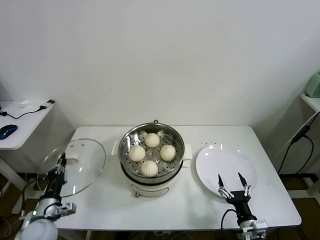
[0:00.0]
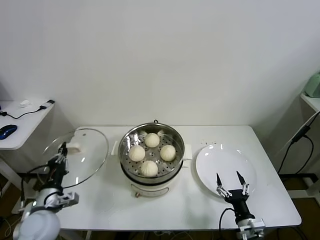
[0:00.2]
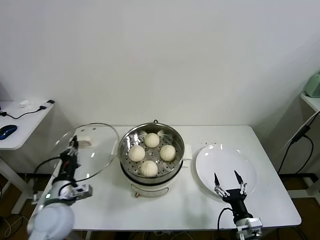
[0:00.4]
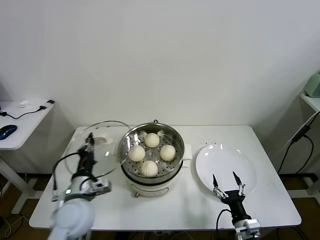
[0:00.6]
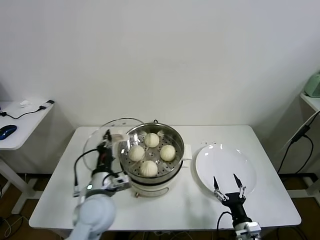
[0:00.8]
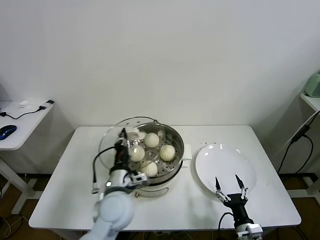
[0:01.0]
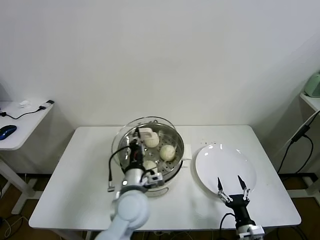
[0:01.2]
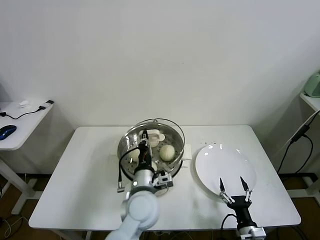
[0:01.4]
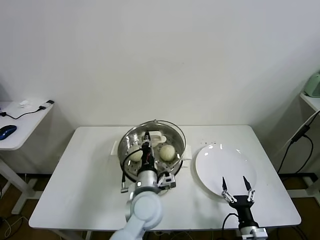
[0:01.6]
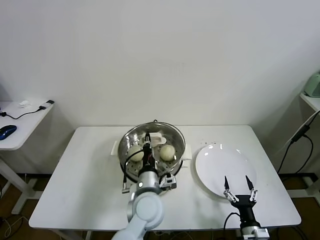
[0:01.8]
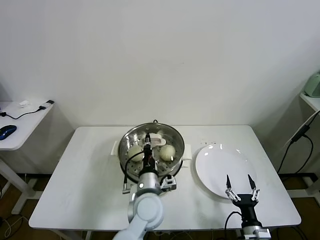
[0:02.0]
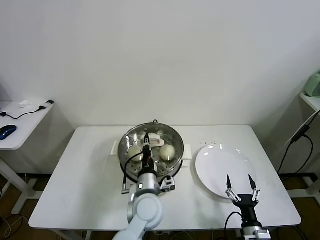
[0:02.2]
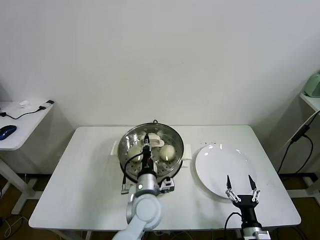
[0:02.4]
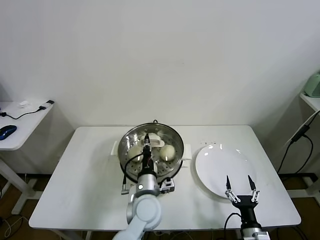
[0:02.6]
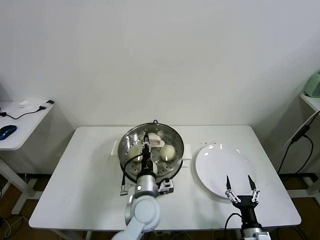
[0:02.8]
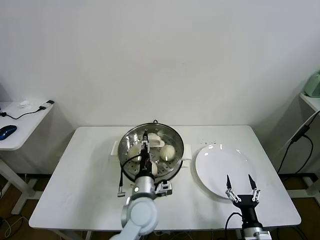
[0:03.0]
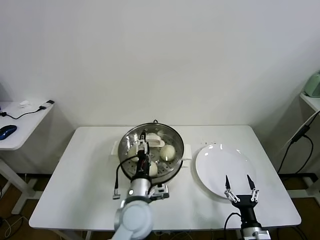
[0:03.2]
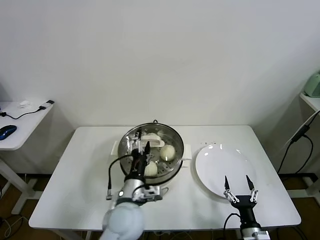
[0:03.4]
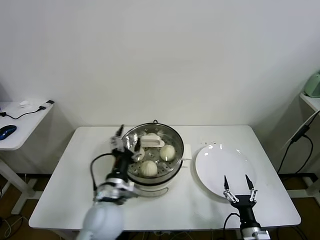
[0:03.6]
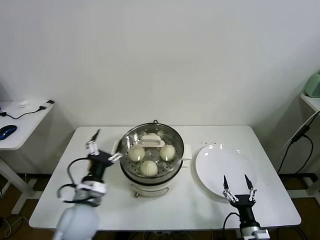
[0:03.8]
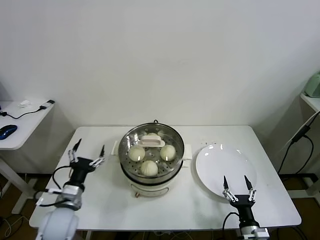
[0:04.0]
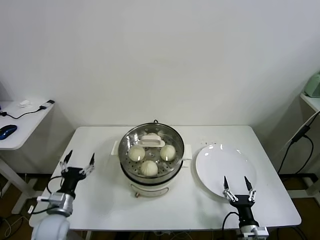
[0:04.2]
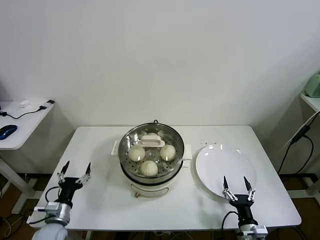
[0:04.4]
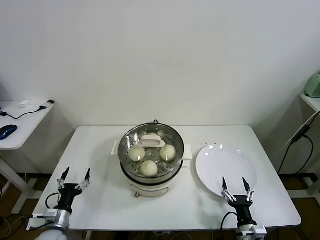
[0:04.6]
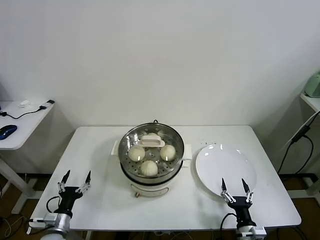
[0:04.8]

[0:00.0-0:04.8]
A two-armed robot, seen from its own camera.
Task of the whole recording: take steamed baozi put them in steamer.
Step, 0:00.0 to 0:02.6: Place the pot lid on the steamer with left gripper.
0:00.0 to 0:01.6: The left gripper travels to the right by about 35 cm.
0:01.6 to 0:03.2: The left gripper opens up.
0:03.2 to 0:04.8: The left gripper heads to the left and downward, covering some 35 cm.

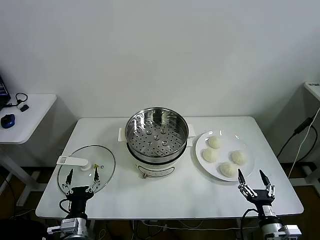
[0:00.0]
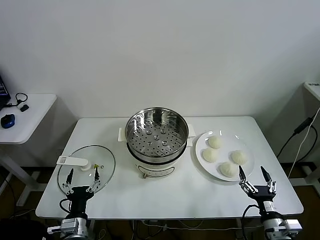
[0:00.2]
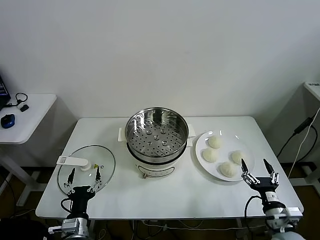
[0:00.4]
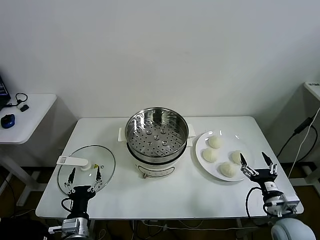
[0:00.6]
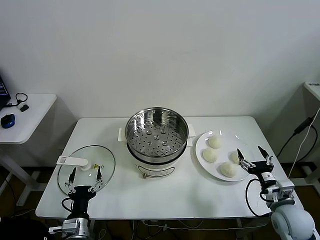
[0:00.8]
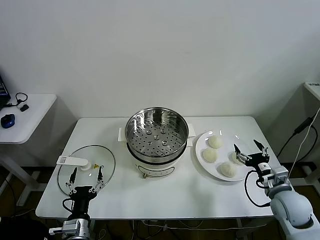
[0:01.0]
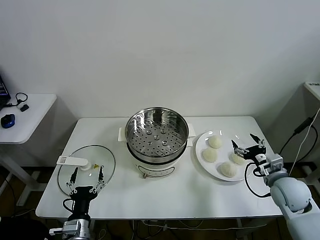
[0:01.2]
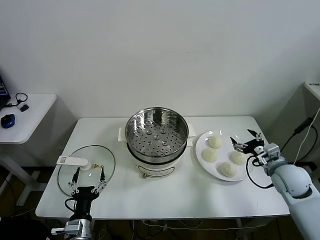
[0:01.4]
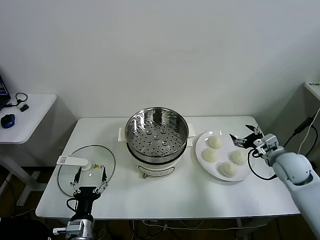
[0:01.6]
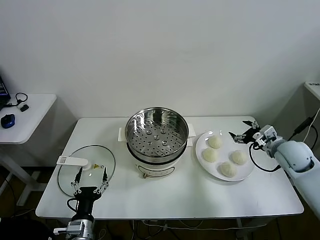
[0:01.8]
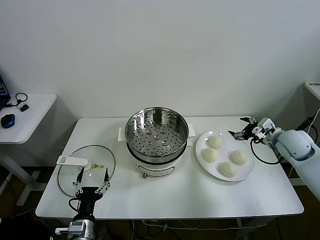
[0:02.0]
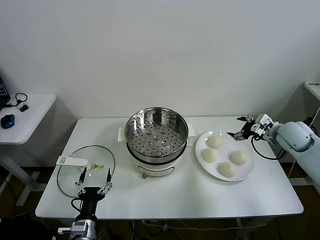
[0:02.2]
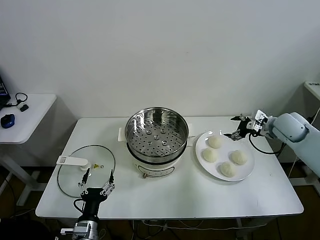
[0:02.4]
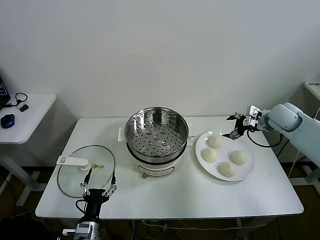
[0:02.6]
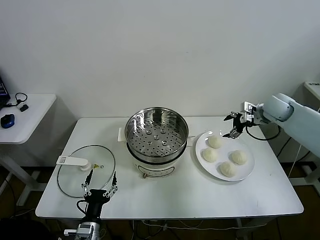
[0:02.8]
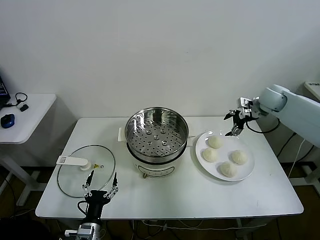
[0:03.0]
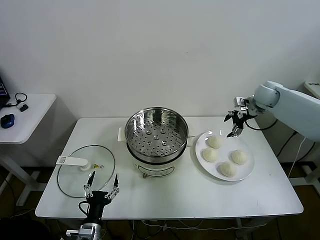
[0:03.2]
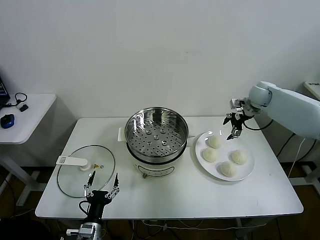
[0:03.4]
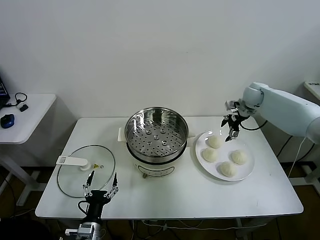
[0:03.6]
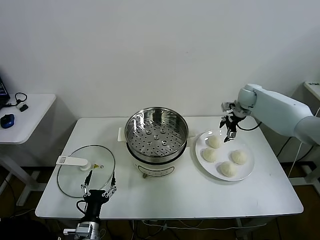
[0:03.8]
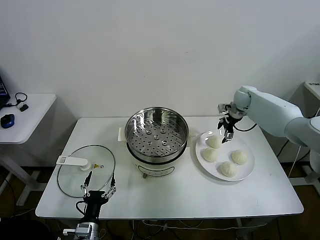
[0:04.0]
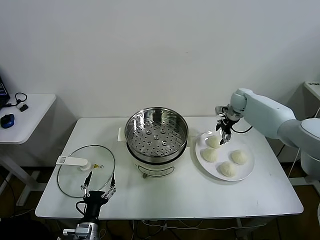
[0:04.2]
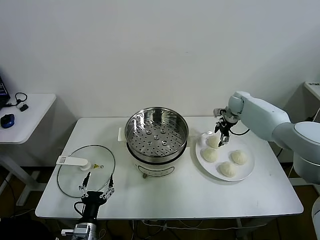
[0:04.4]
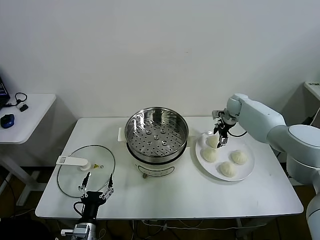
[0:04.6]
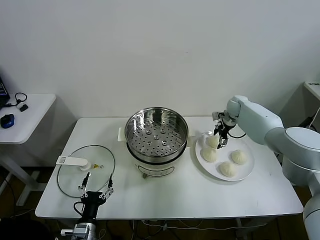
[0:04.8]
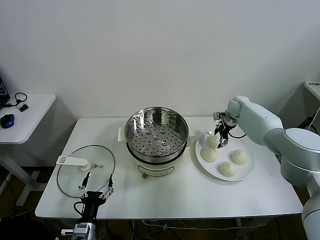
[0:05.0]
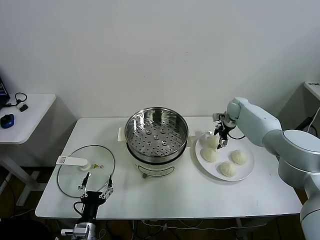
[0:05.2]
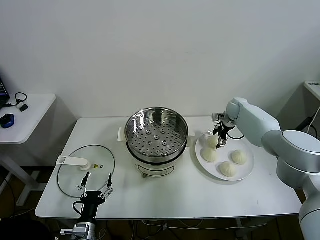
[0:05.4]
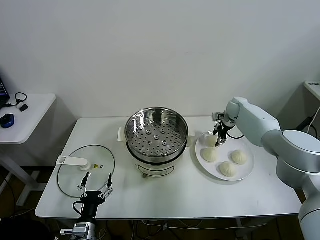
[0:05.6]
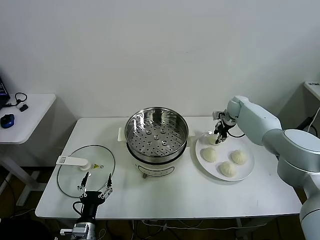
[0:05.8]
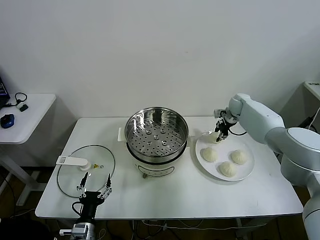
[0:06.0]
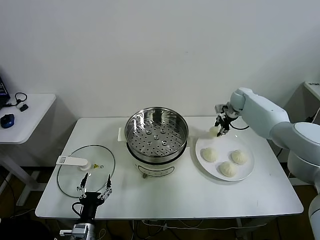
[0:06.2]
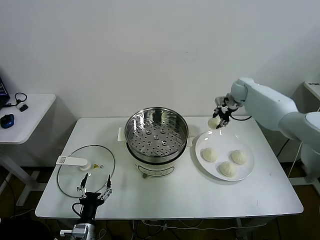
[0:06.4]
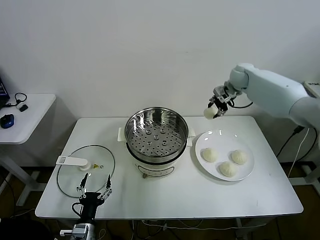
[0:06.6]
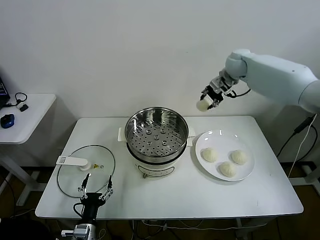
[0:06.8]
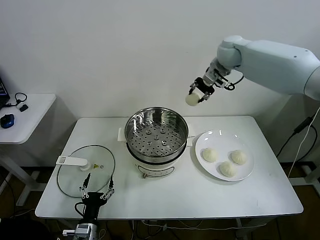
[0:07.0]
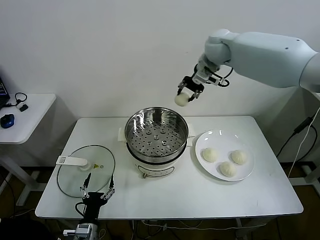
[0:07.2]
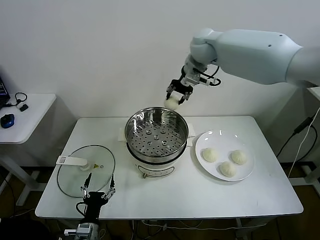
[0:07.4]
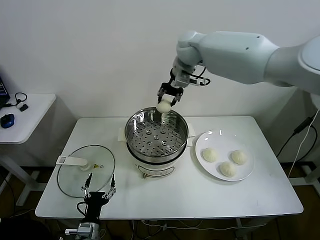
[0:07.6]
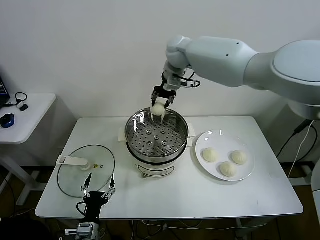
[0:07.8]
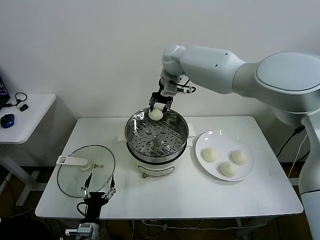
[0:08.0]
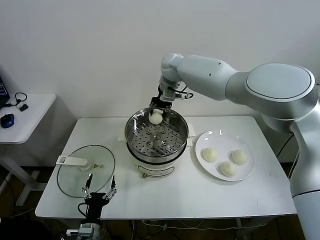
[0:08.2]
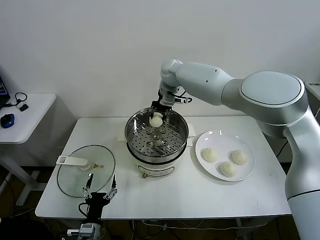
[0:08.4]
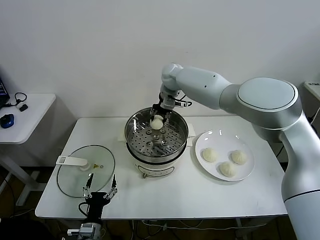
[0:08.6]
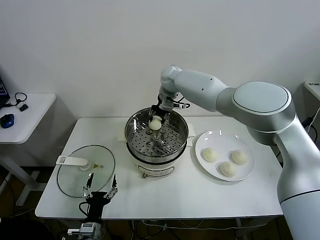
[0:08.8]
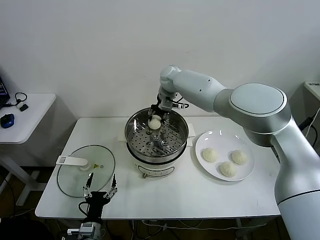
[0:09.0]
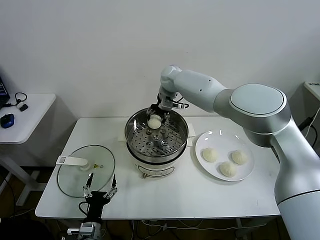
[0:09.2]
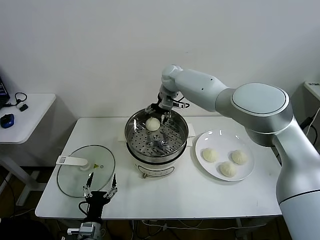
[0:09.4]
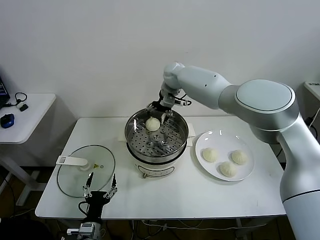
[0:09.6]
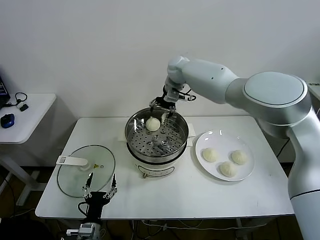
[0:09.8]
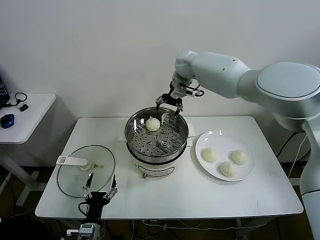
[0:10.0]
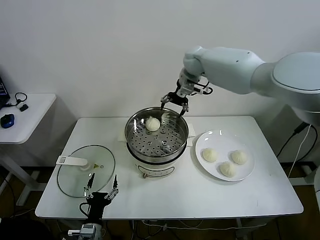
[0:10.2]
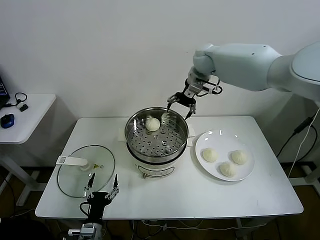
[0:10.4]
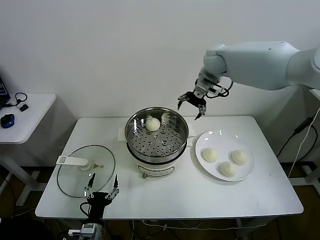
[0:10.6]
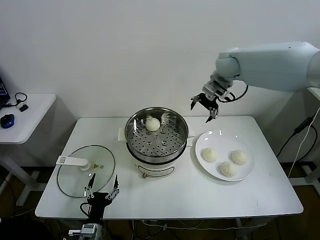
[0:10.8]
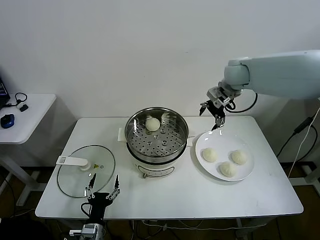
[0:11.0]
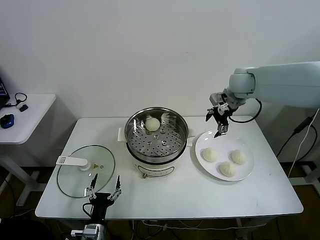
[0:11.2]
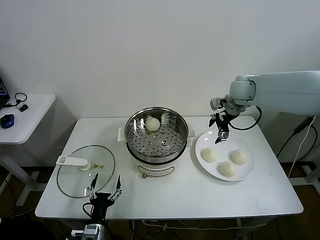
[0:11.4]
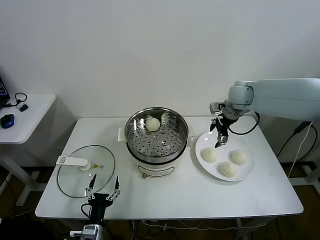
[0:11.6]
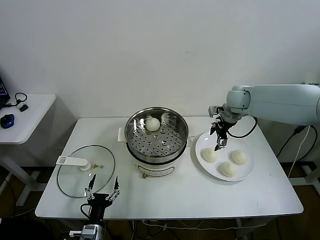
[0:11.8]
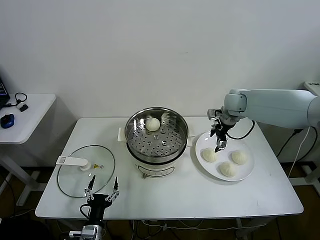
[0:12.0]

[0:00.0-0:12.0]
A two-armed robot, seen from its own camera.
Task of the whole recording: take steamed baozi put them in steamer.
Step, 0:00.0 to 0:05.8: Grasp the baozi in the plate with right gripper.
Step, 0:06.0 to 0:09.2: Place the baozi on the steamer with right gripper.
0:01.6 to 0:03.0: The right gripper moves forward and upward, about 20 cm.
0:03.0 to 0:04.4: The right gripper heads downward, forward and to the left, covering about 15 cm.
0:04.4 to 0:06.0: The right gripper closes.
0:06.0 to 0:07.6: The right gripper moves to the left and upward, roughly 35 cm.
0:07.6 to 0:09.0: The right gripper shifts roughly 15 cm downward.
0:09.0 to 0:10.4: The right gripper is displaced to the right and upward by some 15 cm, and opens up.
0:10.4 to 0:12.0: The right gripper shifts about 20 cm downward and to the right.

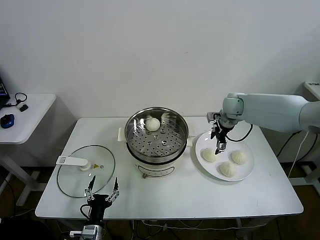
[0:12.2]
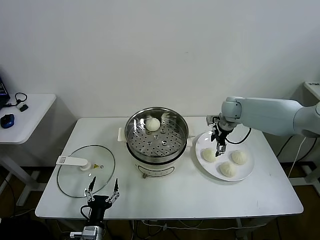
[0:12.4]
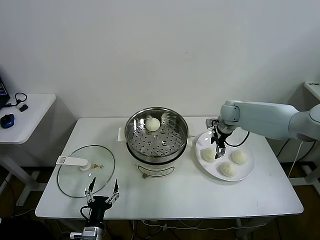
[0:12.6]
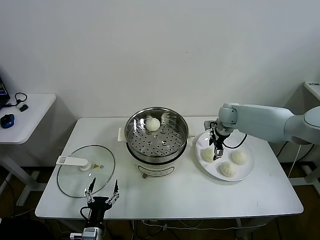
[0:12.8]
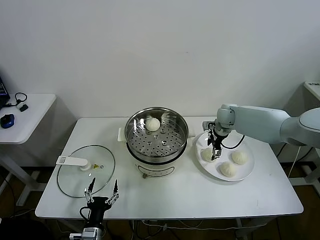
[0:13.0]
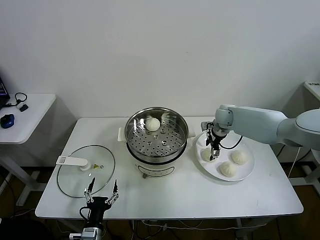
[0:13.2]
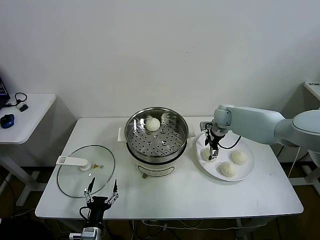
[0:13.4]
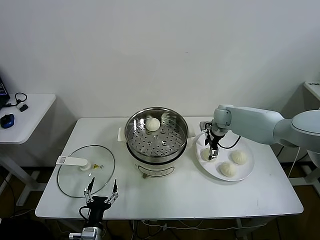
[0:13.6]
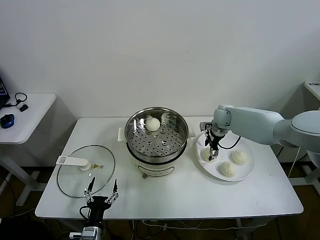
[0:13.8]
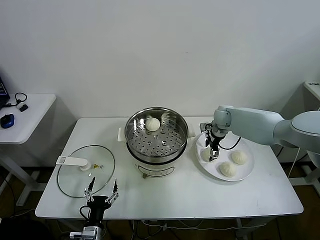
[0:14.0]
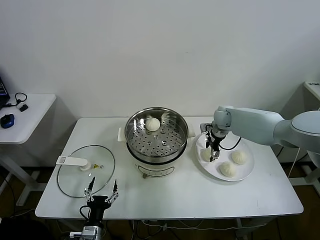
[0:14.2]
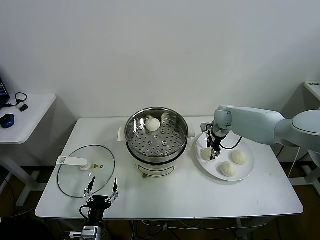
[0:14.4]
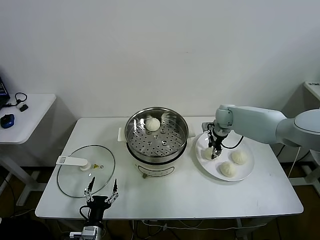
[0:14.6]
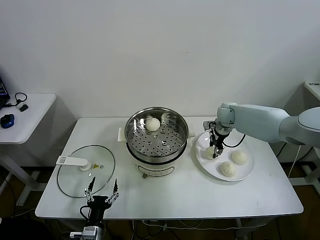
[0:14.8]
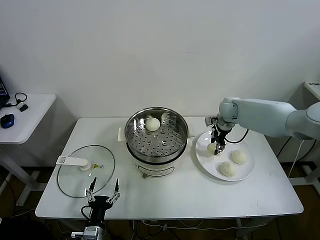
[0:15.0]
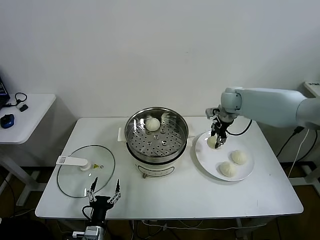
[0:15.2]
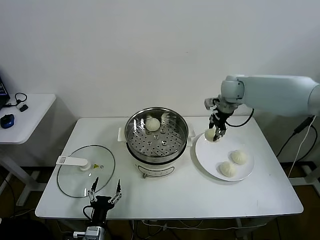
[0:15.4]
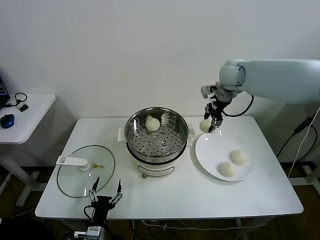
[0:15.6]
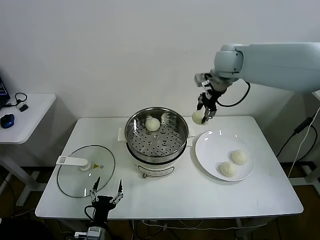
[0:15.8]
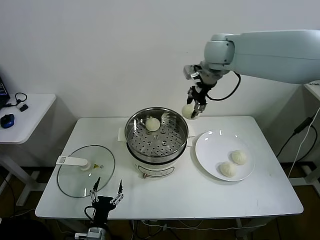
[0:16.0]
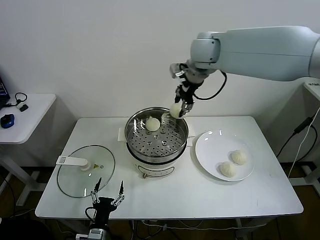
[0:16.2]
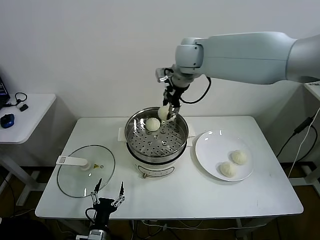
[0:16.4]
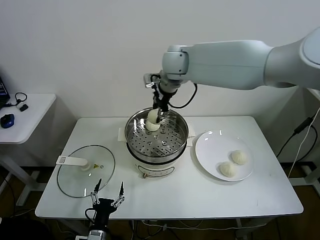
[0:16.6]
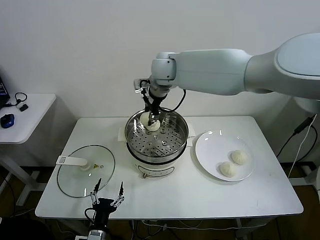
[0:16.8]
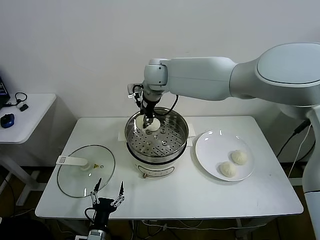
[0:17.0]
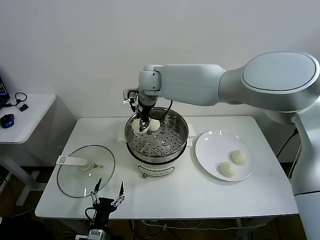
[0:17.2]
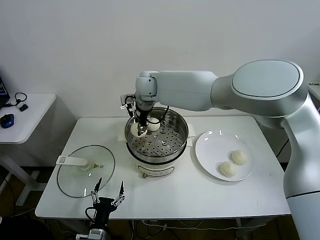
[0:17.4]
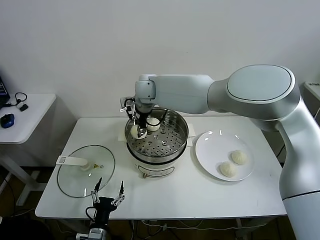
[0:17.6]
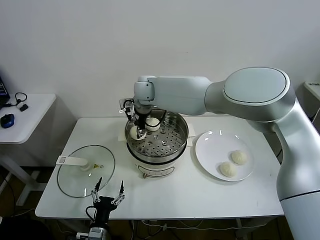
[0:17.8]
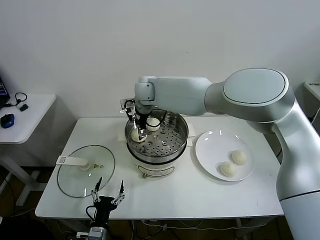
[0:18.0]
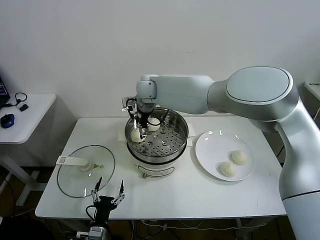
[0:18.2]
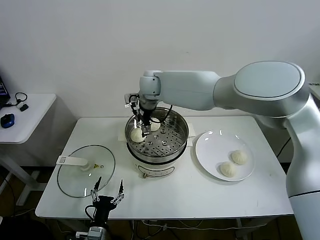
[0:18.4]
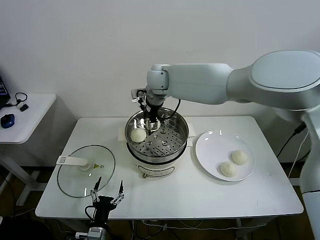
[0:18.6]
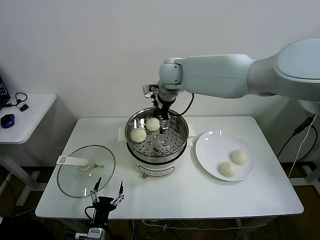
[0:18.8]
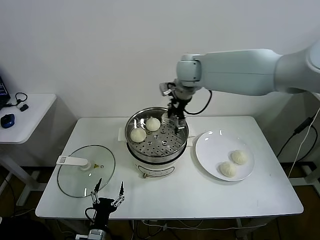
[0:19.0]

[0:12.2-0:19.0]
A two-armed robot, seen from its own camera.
Task of the whole recording: take steamed baozi put them in steamer.
Step, 0:12.2 to 0:14.4: Grasp the baozi in the plate with right gripper.
Step, 0:14.6 to 0:18.0: Place the baozi on the steamer with right gripper.
0:12.2 to 0:13.6: The right gripper shifts roughly 5 cm downward.
0:13.6 to 0:15.0: The right gripper shifts roughly 5 cm upward, and closes its fingers.
0:15.0 to 0:16.2: The right gripper is displaced upward and to the left by approximately 30 cm.
0:16.2 to 0:17.6: The right gripper heads to the left and downward, covering approximately 20 cm.
0:17.6 to 0:19.0: The right gripper travels to the right and upward by roughly 15 cm, and opens up.
